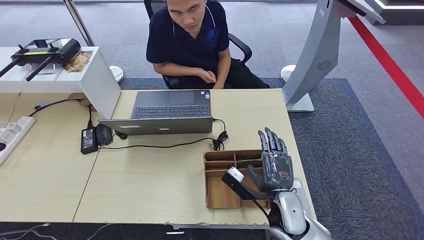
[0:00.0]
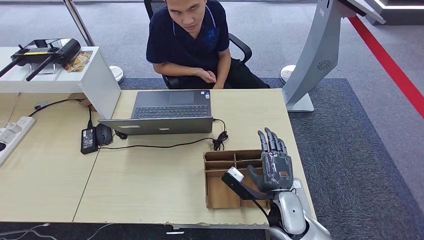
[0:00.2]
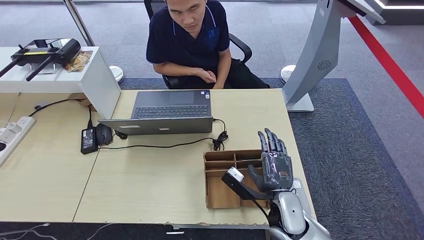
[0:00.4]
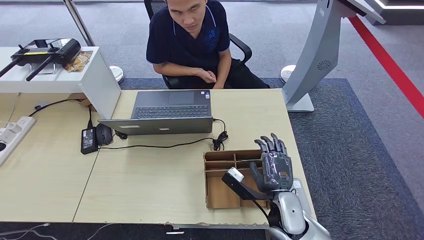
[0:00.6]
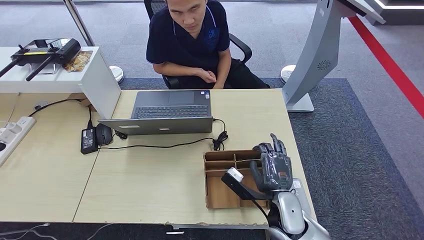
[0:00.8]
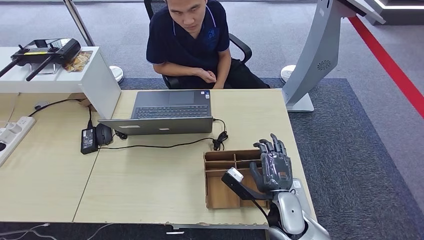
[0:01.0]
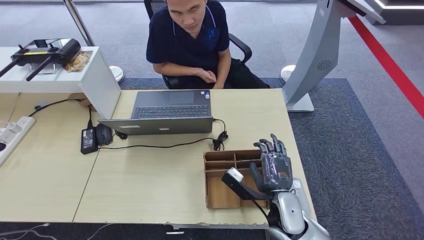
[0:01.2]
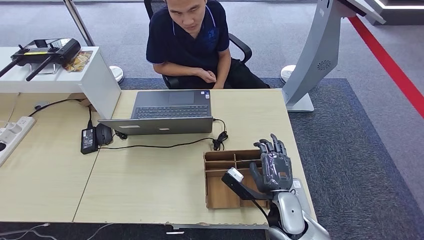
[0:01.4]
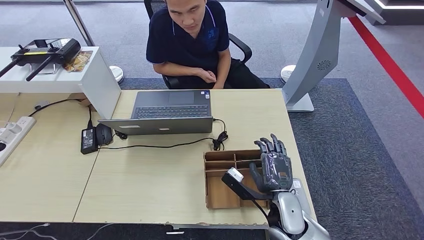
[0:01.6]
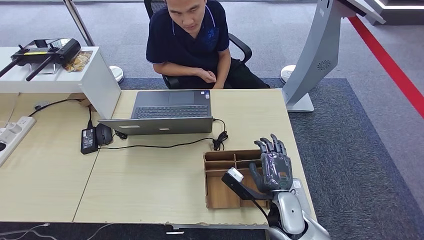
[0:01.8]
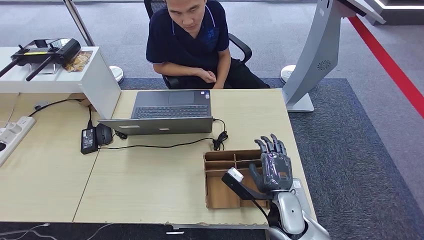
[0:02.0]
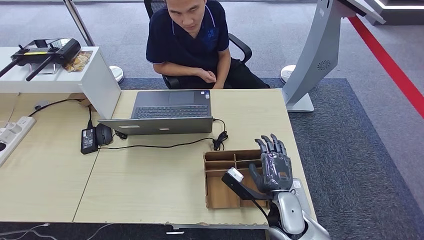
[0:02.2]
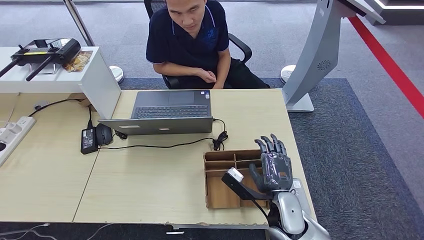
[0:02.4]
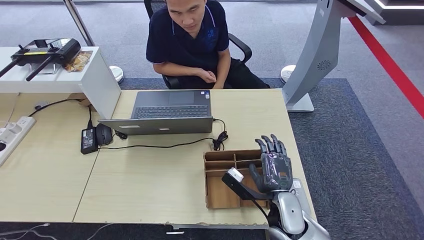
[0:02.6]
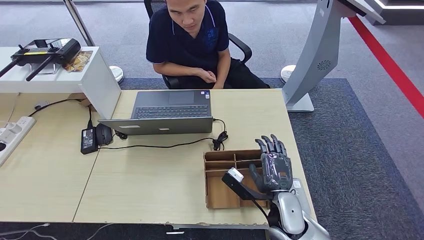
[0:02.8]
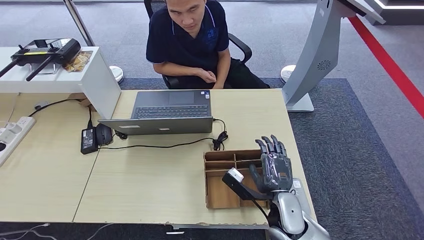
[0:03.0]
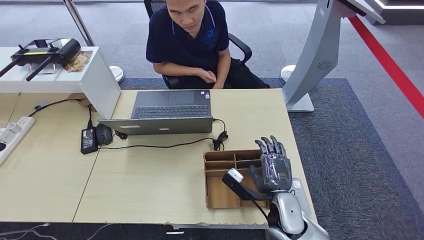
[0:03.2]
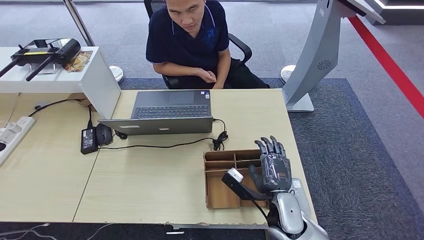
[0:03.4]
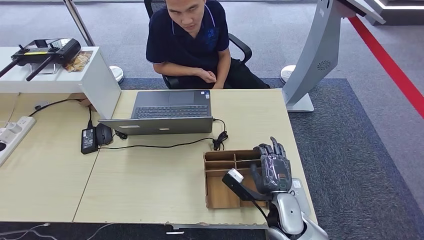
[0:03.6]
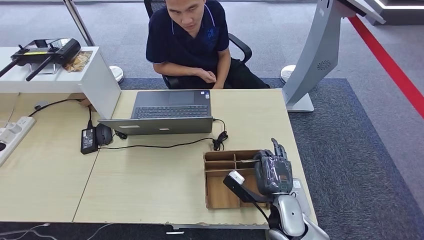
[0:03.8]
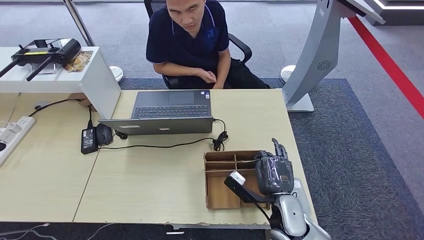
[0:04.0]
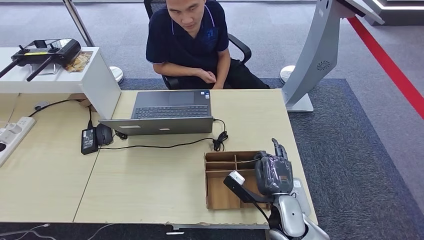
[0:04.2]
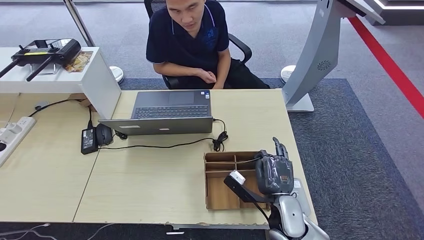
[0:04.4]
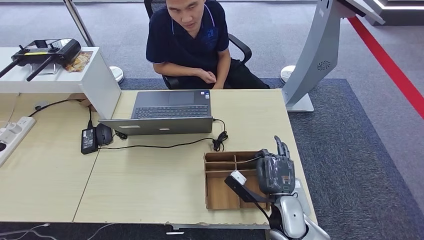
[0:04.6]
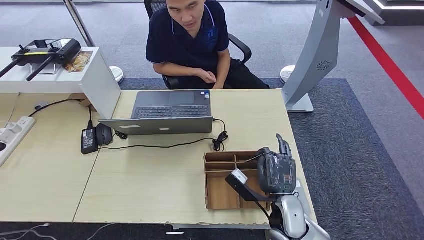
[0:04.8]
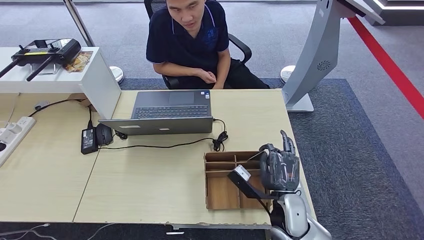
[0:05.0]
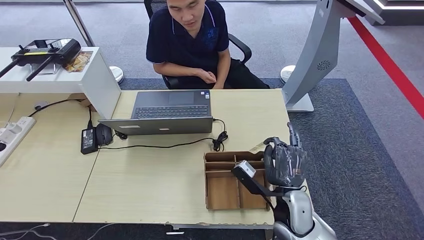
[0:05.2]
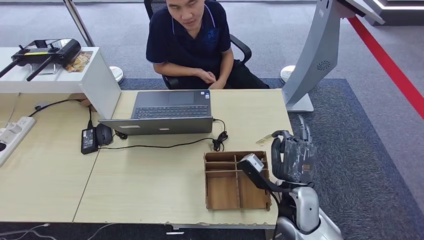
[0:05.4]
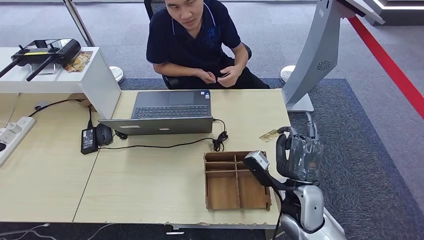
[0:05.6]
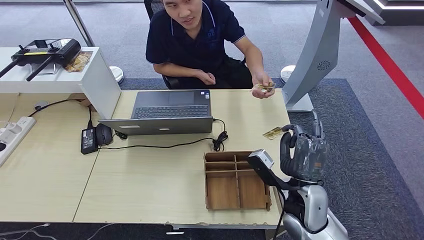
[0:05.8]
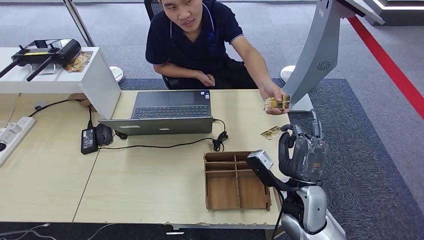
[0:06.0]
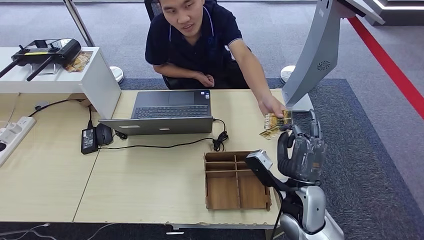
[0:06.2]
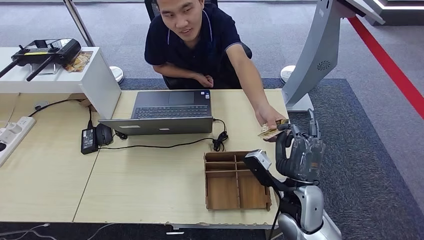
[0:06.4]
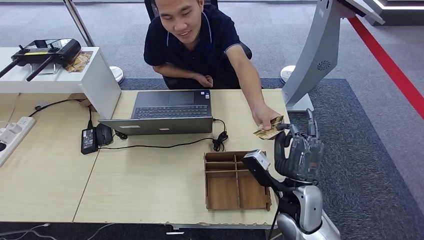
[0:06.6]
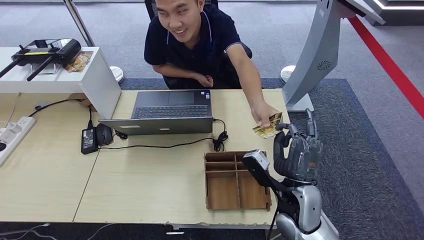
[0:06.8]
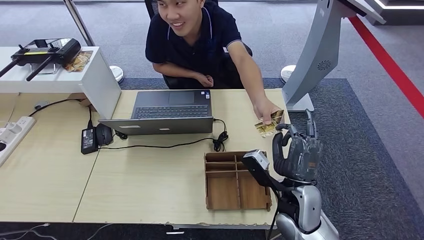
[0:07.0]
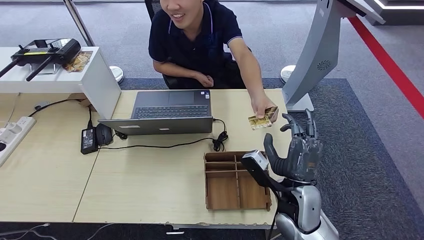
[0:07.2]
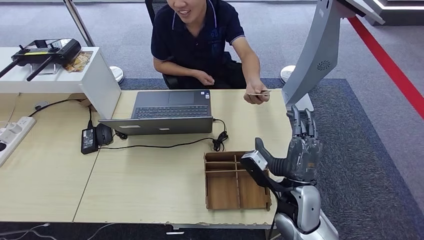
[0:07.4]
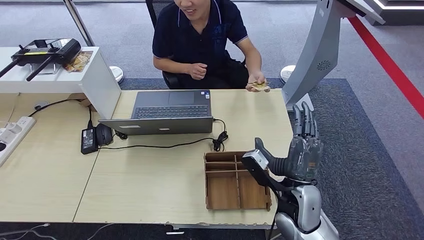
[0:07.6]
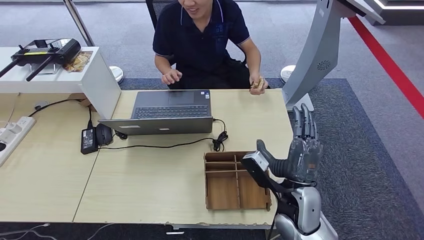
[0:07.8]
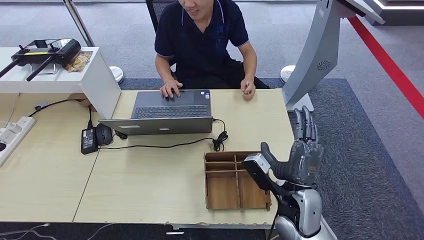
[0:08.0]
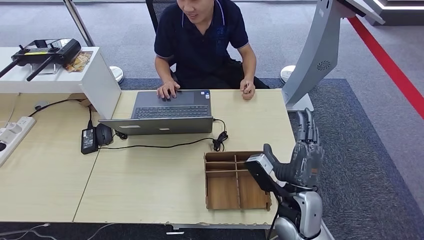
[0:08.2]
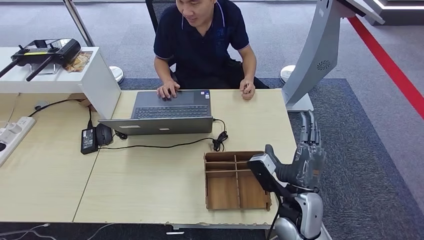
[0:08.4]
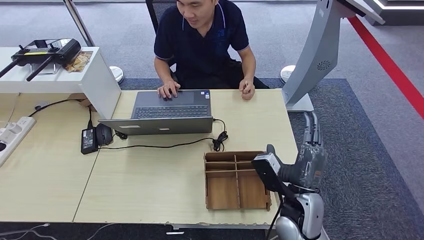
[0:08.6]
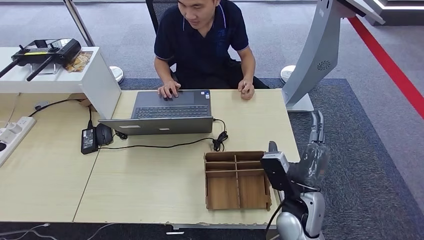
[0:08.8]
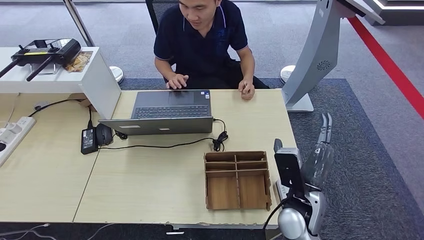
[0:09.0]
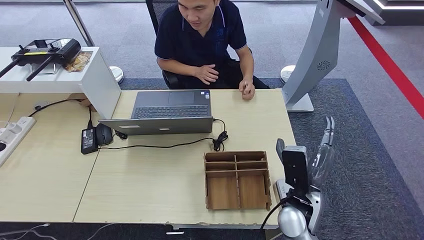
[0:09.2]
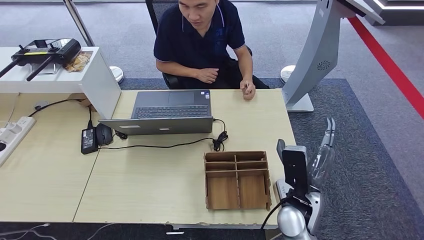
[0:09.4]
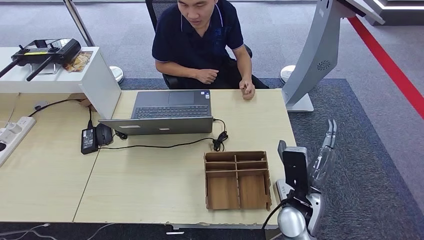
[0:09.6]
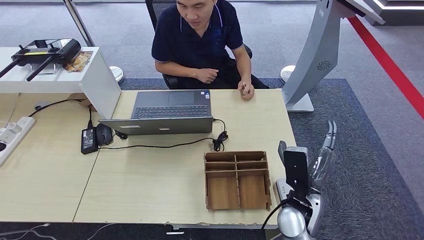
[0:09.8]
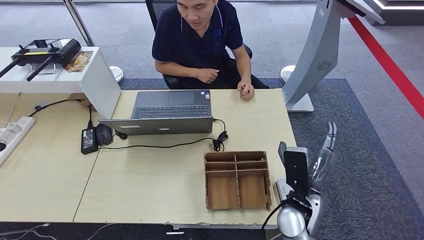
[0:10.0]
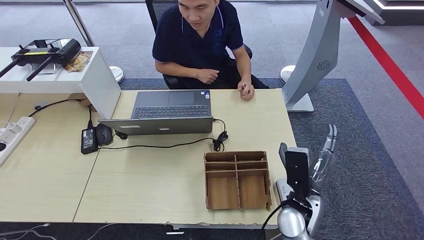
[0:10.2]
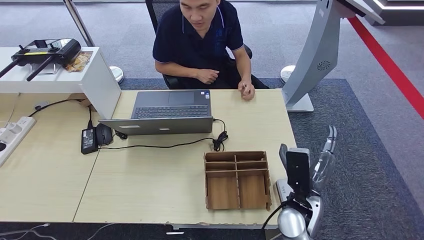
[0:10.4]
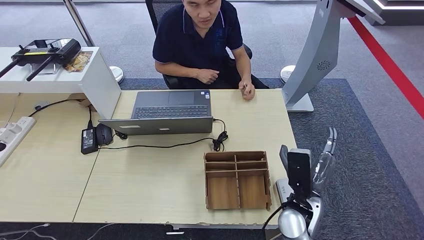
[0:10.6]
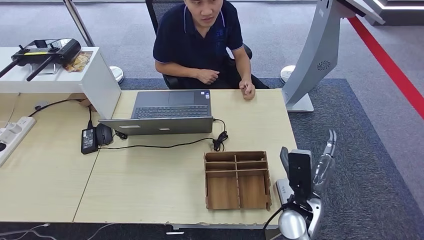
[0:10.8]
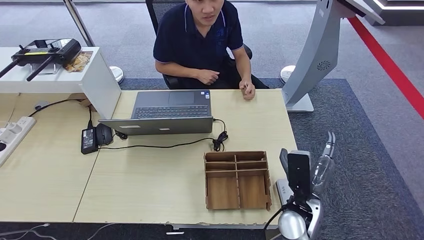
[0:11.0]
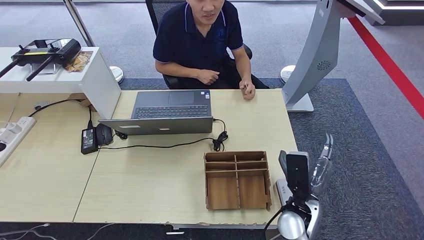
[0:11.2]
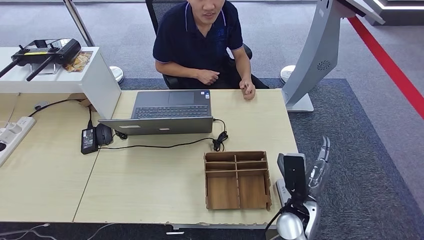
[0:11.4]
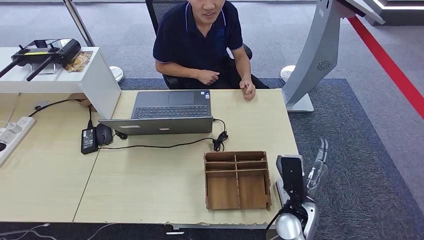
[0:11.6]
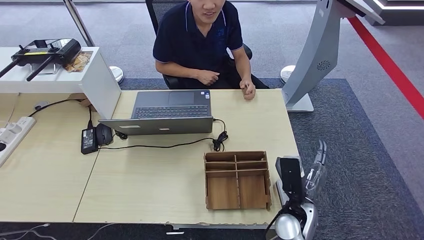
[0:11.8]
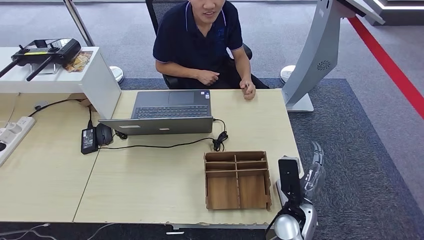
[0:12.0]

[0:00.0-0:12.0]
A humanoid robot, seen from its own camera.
Step, 0:00.0 to 0:06.2: Pick up the room key from the key card box.
Step, 0:06.4 to 0:12.0: Hand the room key to the person.
0:00.0 to 0:03.0: Both hands stay about where they are.
0:04.4 to 0:06.0: The right hand is displaced upward by some 5 cm.
0:06.0 to 0:07.6: The hands move only a little.
0:09.0 to 0:10.4: The hands make only small movements.
0:10.4 to 0:12.0: The hands make only small movements.
